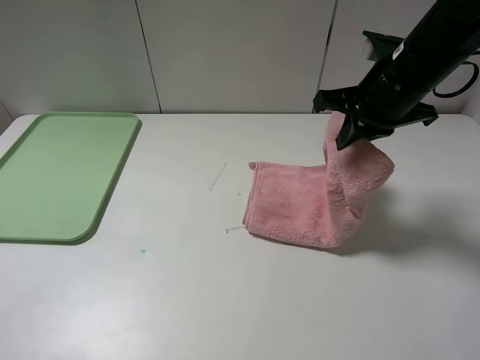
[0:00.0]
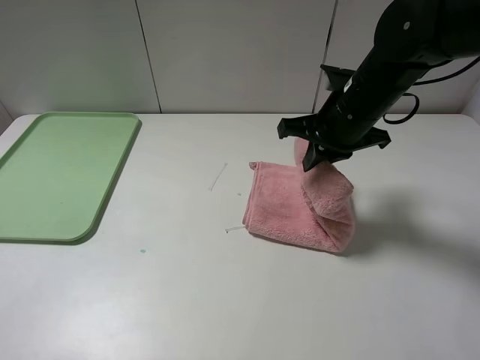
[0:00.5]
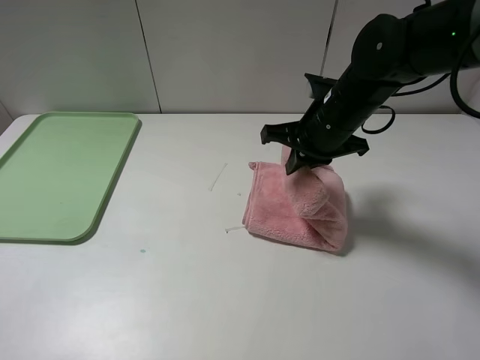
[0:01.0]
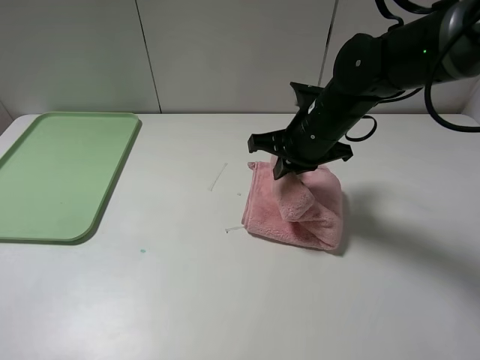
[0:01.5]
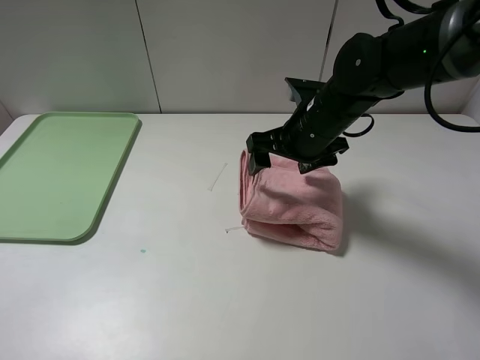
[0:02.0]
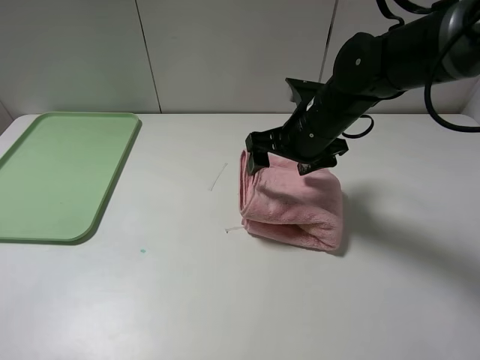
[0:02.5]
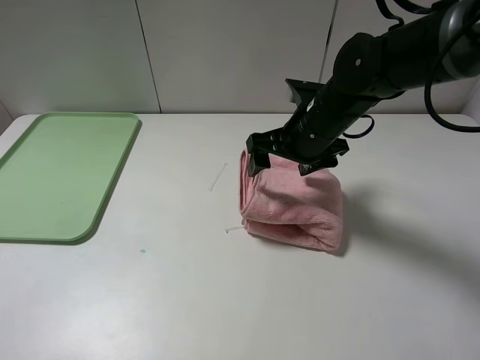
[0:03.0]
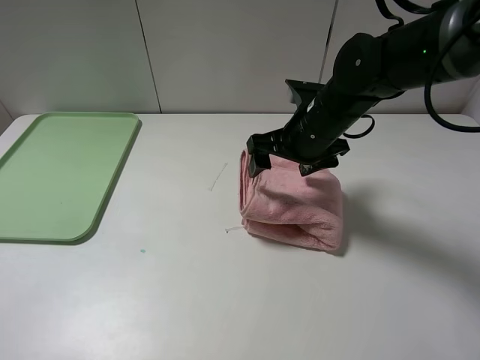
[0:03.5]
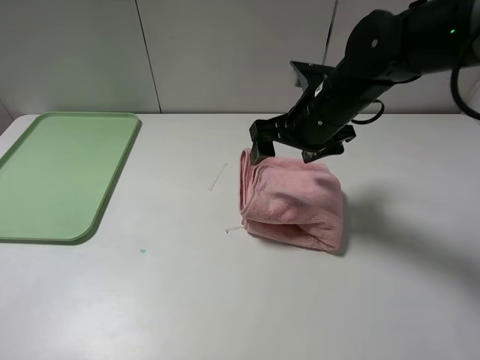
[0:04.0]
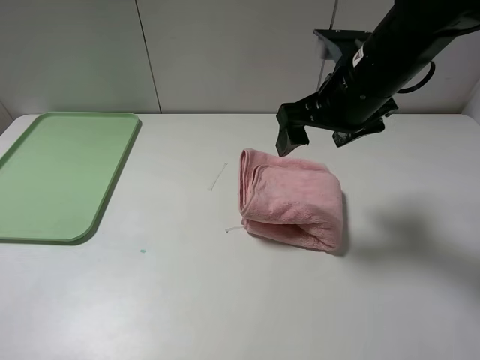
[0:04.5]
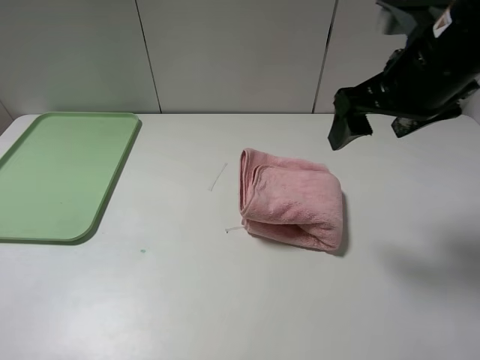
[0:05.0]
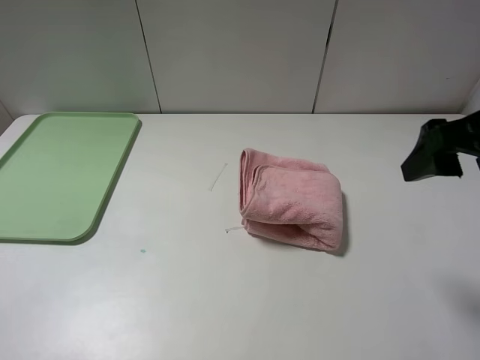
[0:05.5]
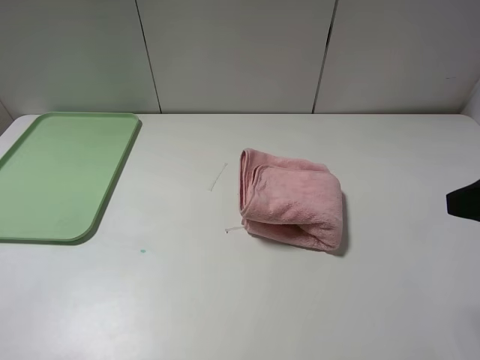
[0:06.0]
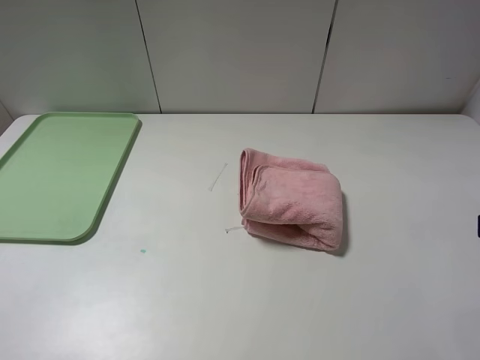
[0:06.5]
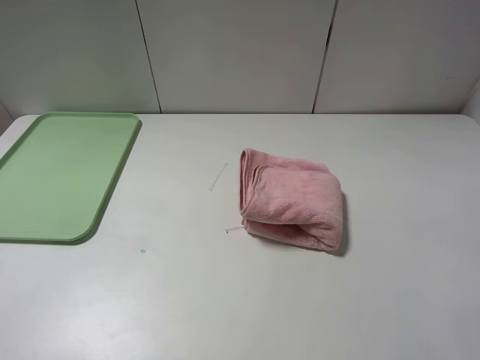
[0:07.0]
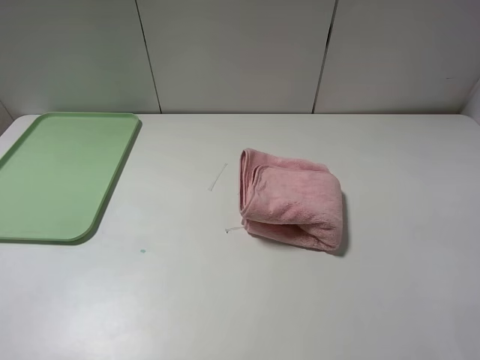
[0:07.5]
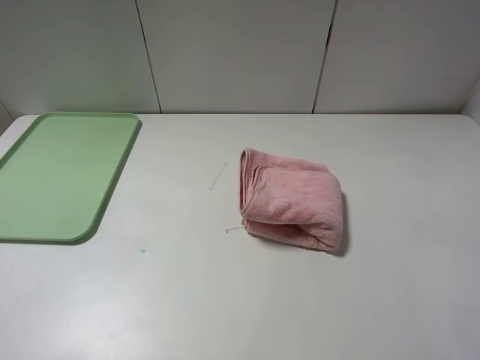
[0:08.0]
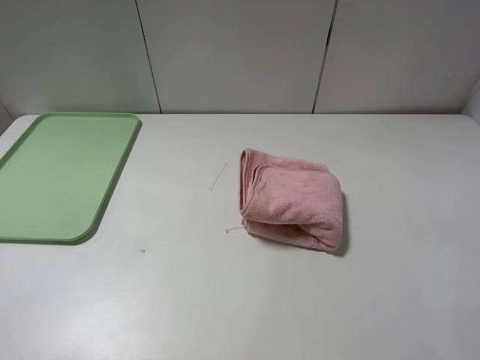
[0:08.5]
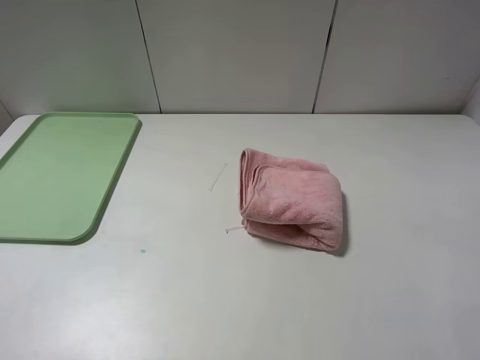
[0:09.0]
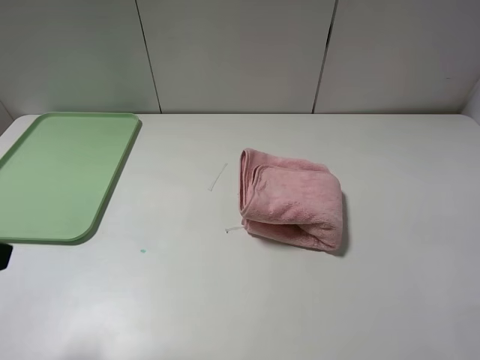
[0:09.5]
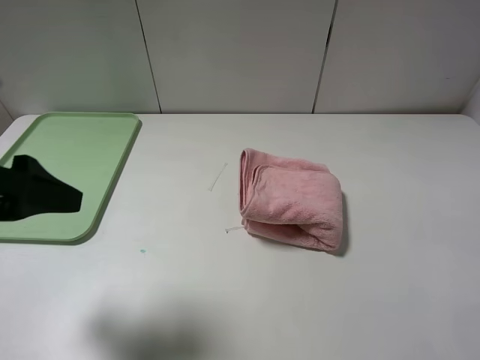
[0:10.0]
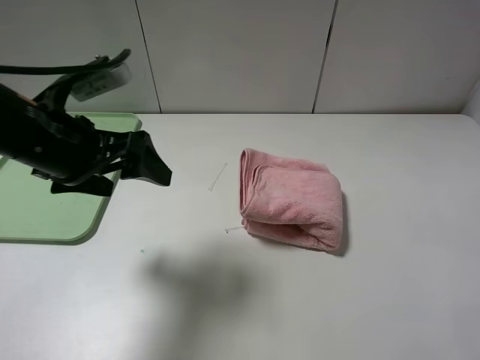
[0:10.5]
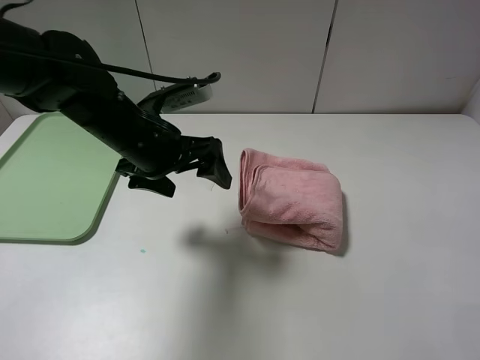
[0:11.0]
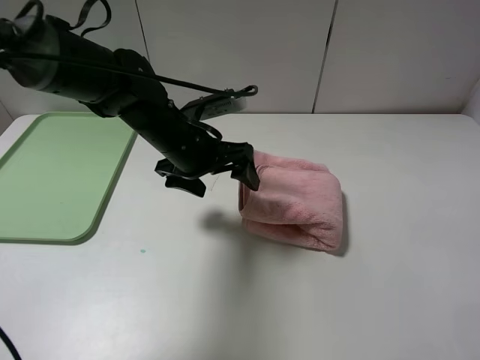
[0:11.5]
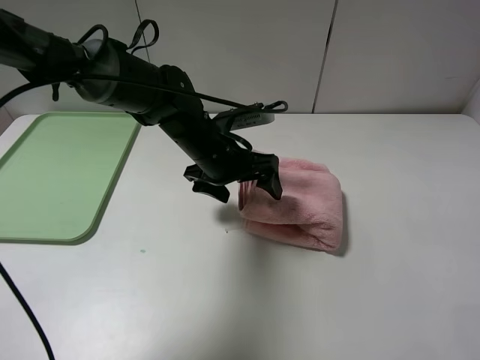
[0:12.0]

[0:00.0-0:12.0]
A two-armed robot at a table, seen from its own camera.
0:00.0 to 0:02.0: The right gripper shifts about 10 cm downward and to the left, and opens its fingers.
0:02.0 to 0:04.0: The grippers move only a little.
0:04.0 to 0:06.0: The right gripper is displaced backward and to the right by some 25 cm.
0:08.0 to 0:10.0: The left gripper moves forward, about 10 cm.
0:10.0 to 0:12.0: The left gripper travels to the right, forward and downward by some 30 cm.

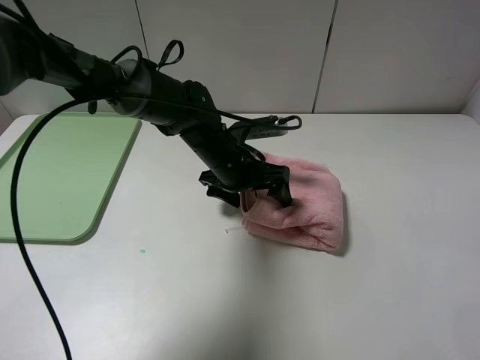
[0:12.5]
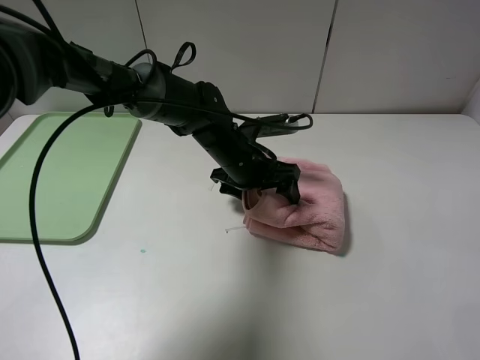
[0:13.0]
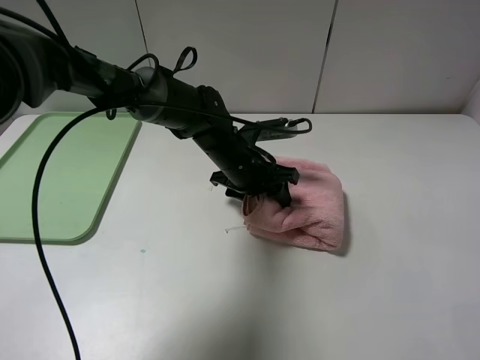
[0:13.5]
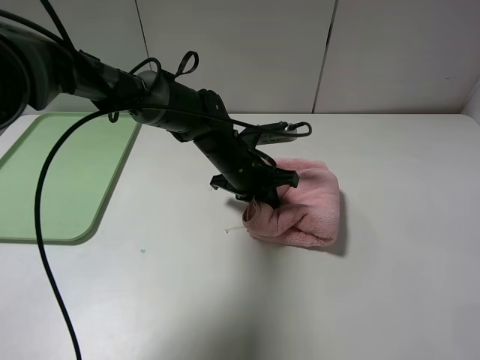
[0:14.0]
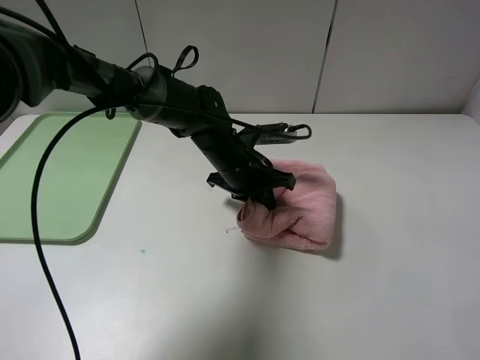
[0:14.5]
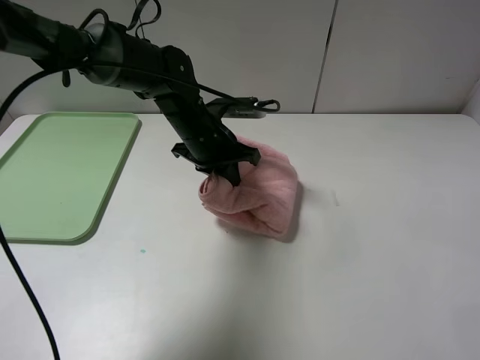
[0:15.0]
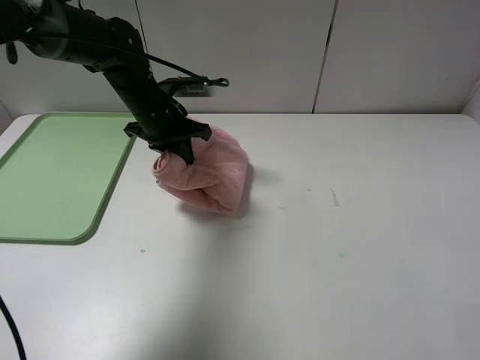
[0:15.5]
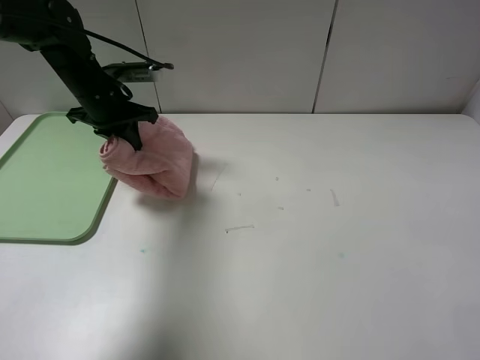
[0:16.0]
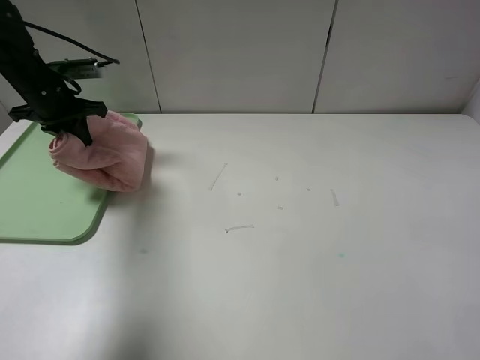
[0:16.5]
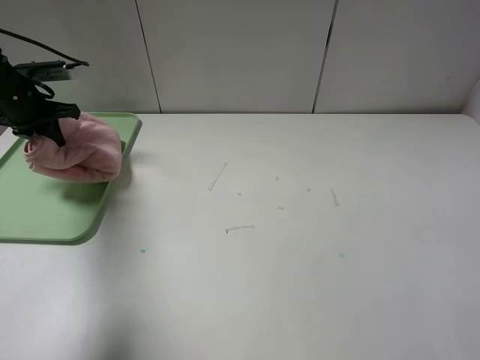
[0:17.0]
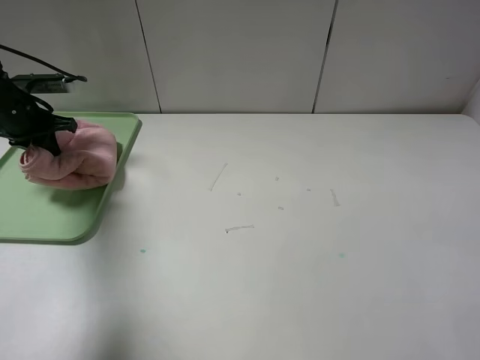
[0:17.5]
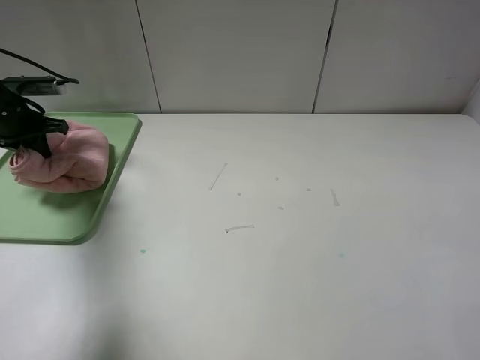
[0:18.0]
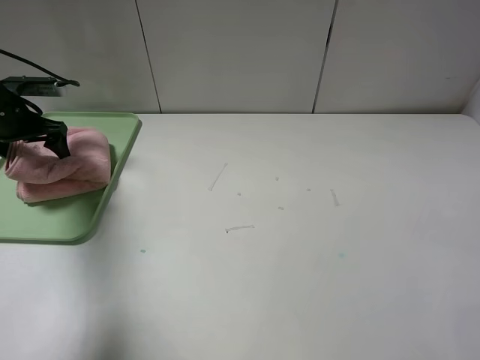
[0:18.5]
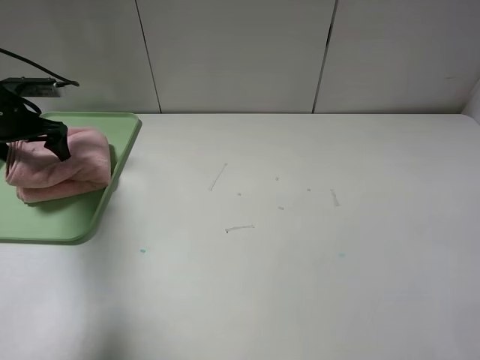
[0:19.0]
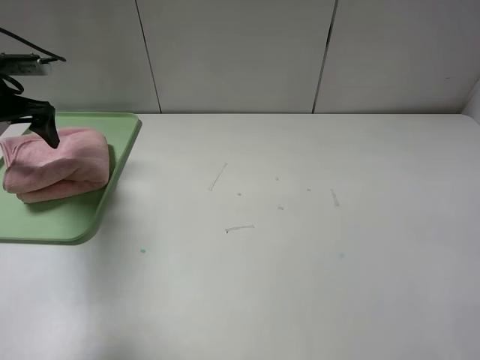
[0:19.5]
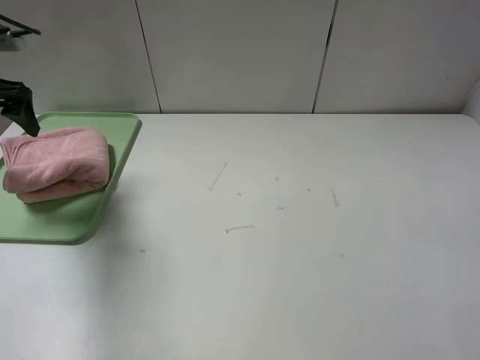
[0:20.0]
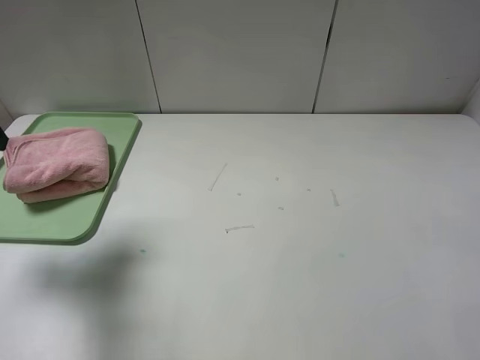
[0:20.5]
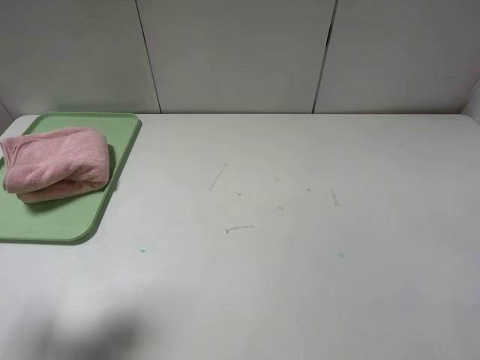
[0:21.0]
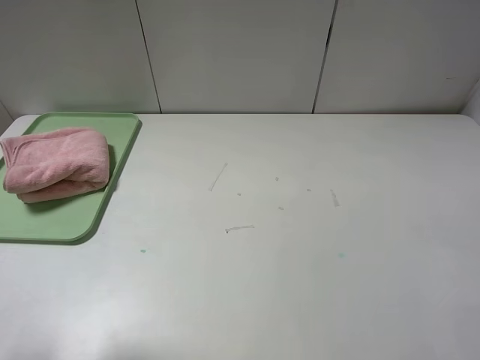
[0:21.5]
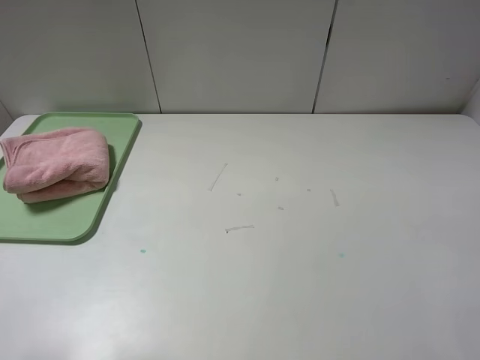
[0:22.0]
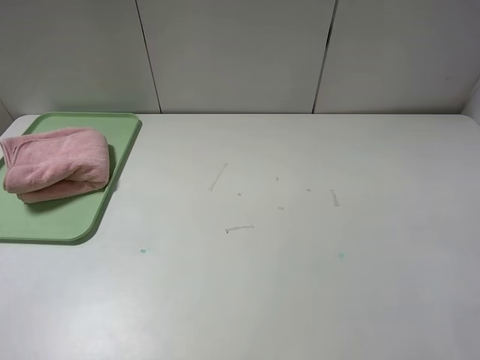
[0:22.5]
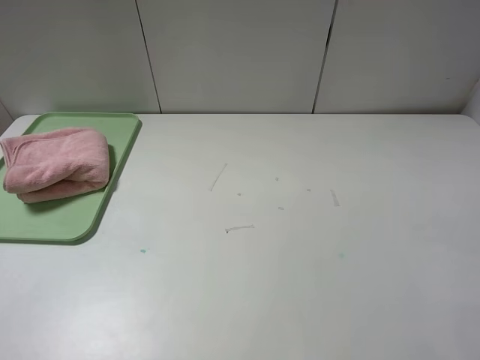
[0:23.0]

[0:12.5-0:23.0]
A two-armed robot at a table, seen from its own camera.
Step, 0:12.5 to 0:19.0: Place the folded pink towel on the tray with the left gripper.
0:12.5 to 0:14.5: The left gripper closes.
0:14.5 to 0:16.5: The left gripper travels to the left by approximately 30 cm.
0:16.5 to 0:19.0: The left gripper shifts about 5 cm to the left, and opens.
0:19.0 to 0:21.0: The left gripper is displaced backward and upward by some 30 cm.
0:21.0 to 0:23.0: The left gripper shifts roughly 15 cm backward.
